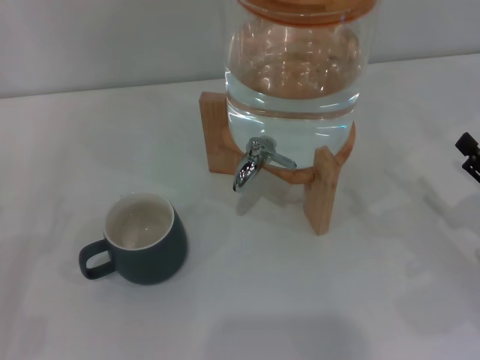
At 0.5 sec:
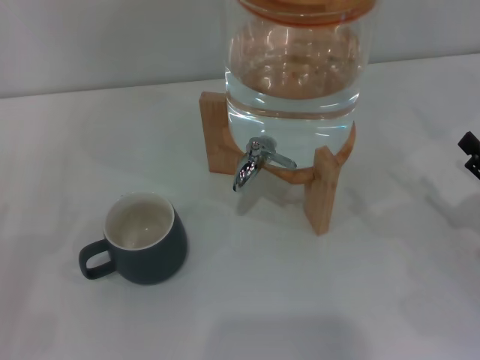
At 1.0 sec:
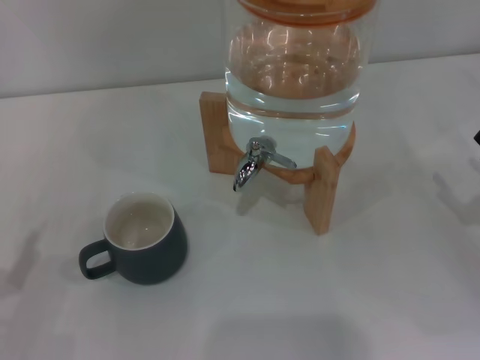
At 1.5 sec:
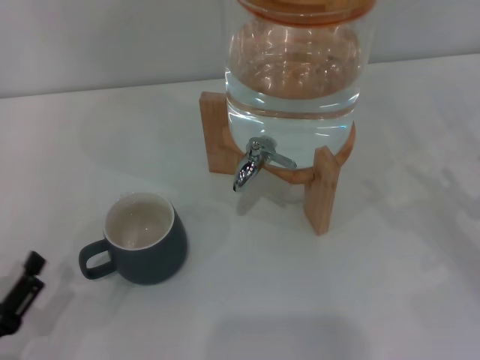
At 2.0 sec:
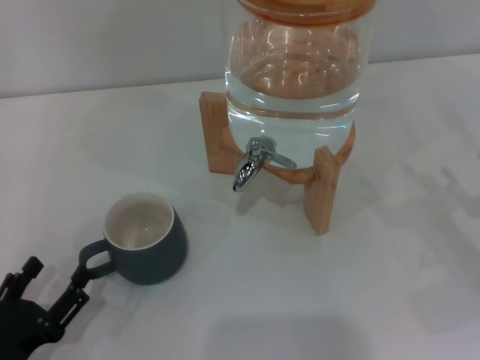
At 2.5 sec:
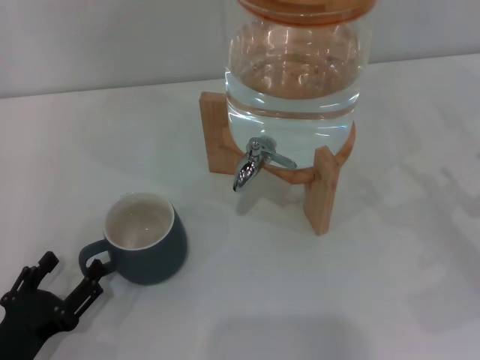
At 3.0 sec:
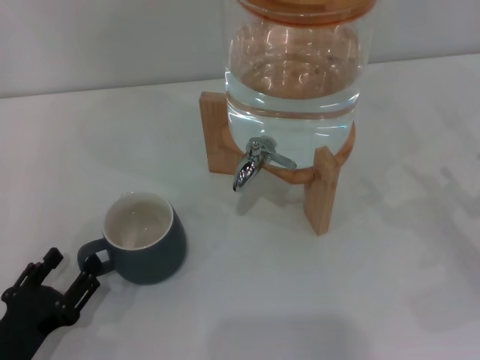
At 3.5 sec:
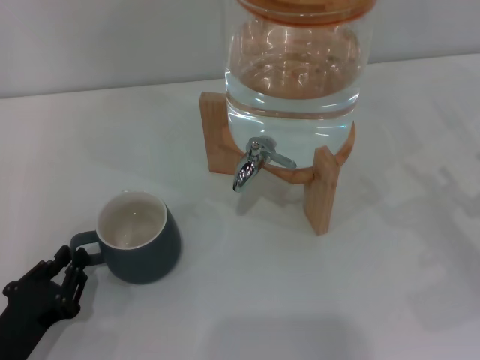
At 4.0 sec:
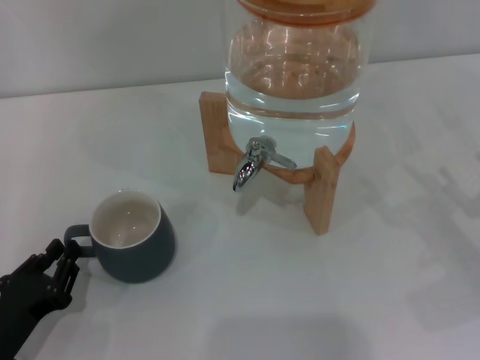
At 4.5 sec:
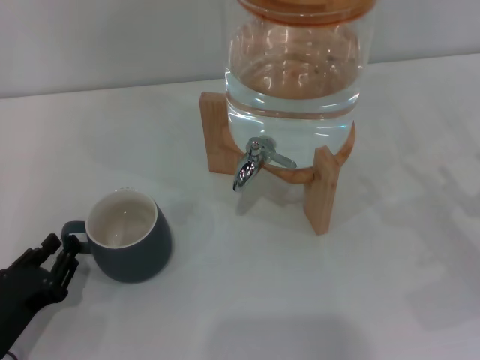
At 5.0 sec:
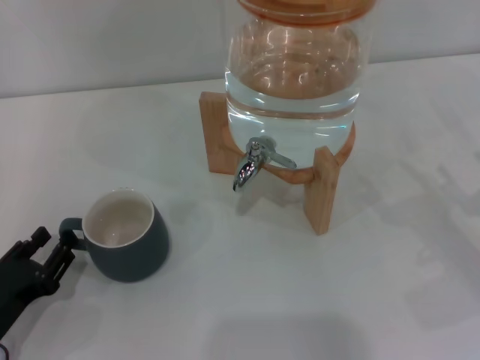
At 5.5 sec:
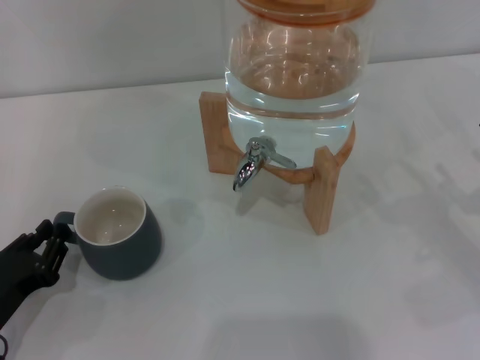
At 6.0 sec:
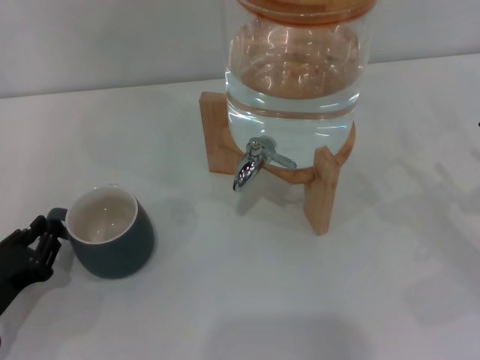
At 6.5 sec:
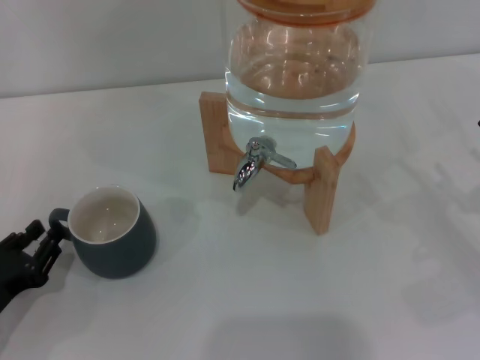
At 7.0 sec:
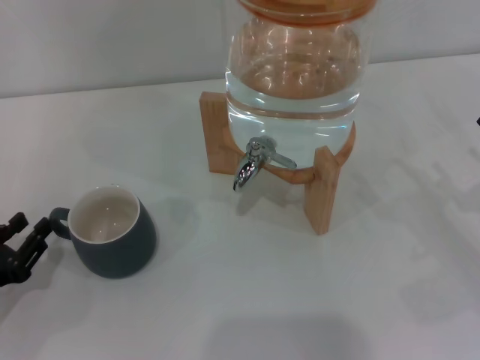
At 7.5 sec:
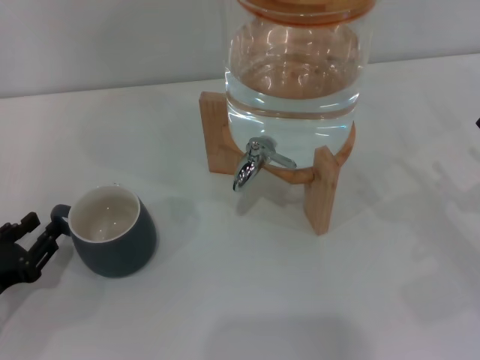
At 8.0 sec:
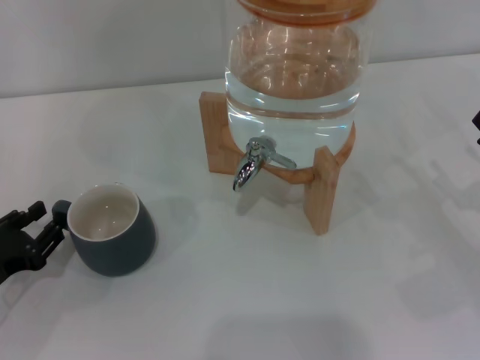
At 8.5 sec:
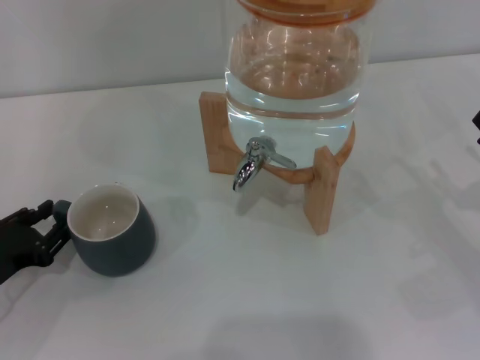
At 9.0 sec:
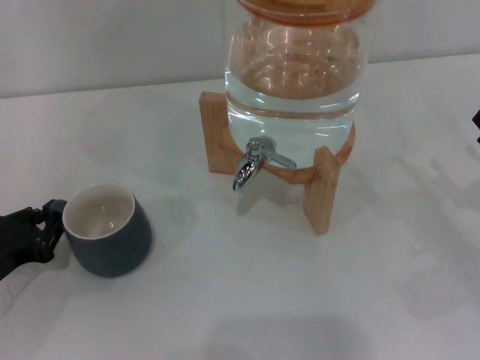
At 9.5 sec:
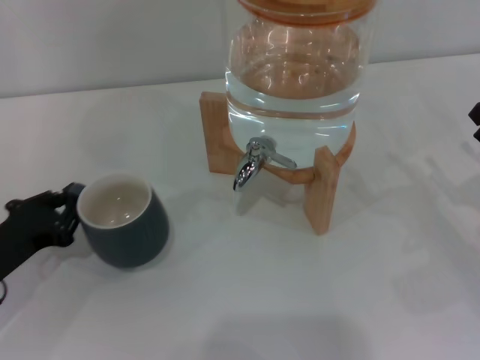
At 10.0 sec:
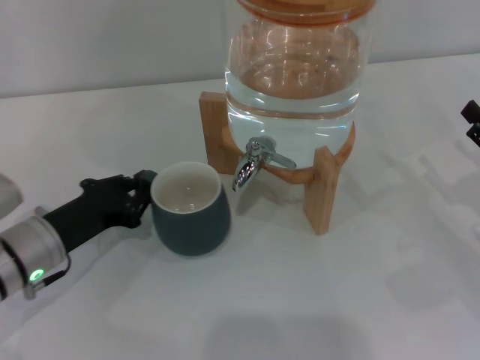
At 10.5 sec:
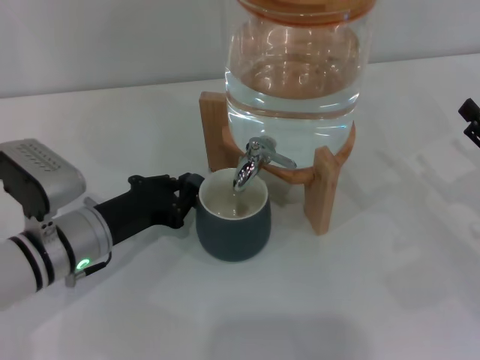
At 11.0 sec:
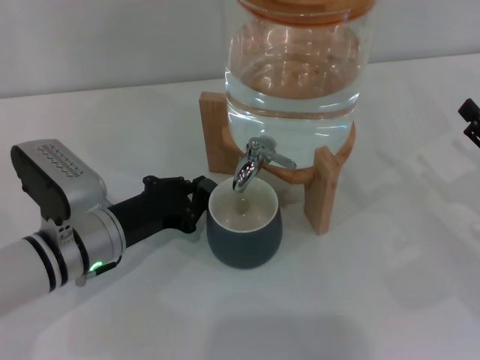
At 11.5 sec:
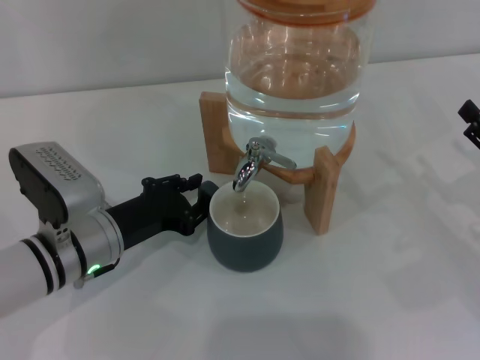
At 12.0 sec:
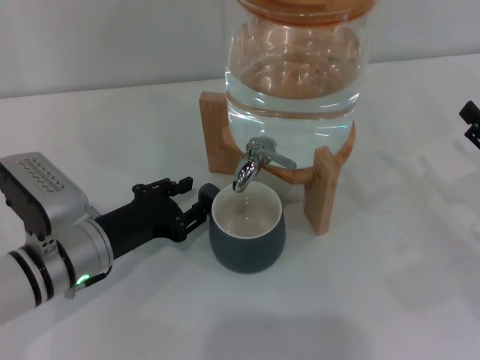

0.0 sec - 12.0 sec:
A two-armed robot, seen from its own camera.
Task of the whole recording: the left gripper pick up the black cup and place it horizontally under the faucet, the right gripper turn on the faucet to fill the cup, and then turn off the faucet.
0.0 sec - 2.0 sec: The left gripper is displaced to the right and backward by roughly 10 cm.
2.0 sec - 4.0 sec: The left gripper closes up.
4.0 sec - 6.0 sec: The grippers make only small movements.
6.0 sec - 8.0 sec: There are only small adjustments of the grippers.
8.0 sec - 10.0 sec: The left gripper travels to the right and forward by some 10 cm, and closes its fingers.
10.0 sec - 12.0 sec: The left gripper opens.

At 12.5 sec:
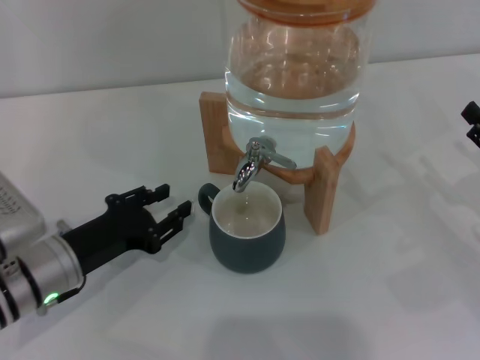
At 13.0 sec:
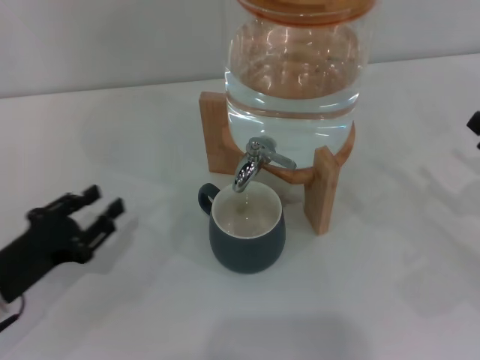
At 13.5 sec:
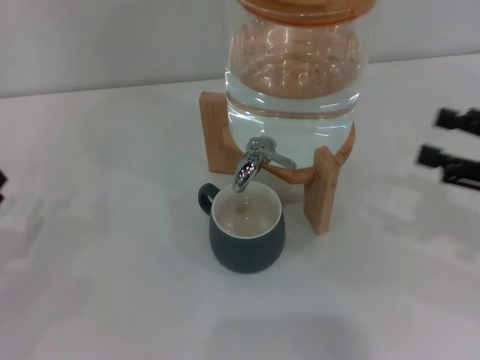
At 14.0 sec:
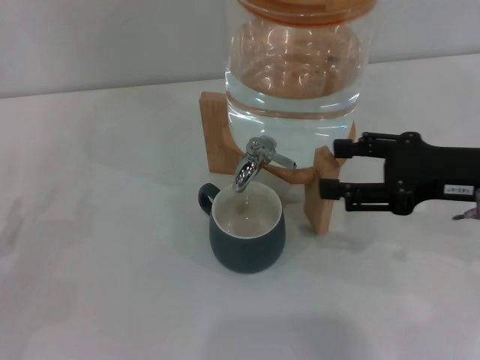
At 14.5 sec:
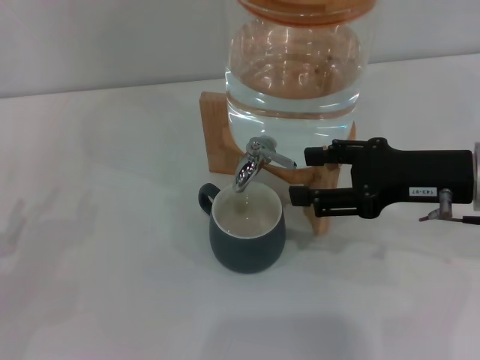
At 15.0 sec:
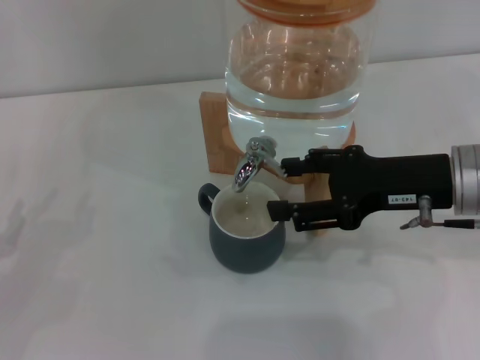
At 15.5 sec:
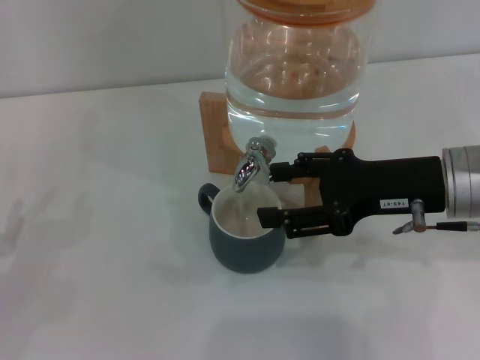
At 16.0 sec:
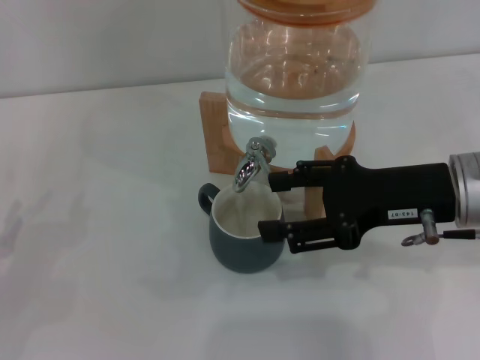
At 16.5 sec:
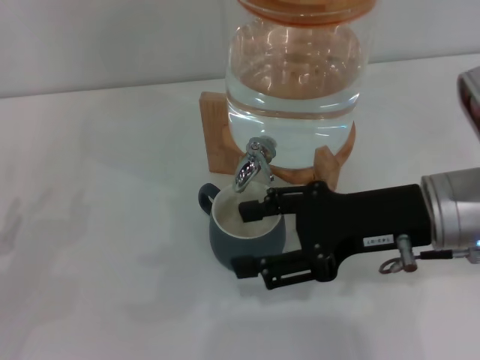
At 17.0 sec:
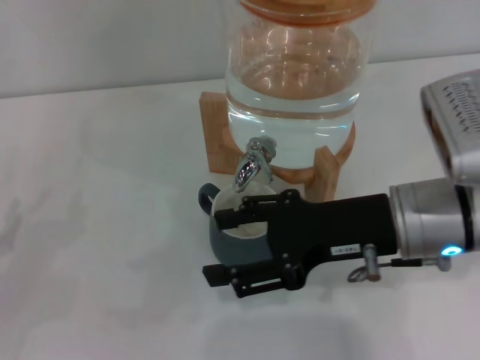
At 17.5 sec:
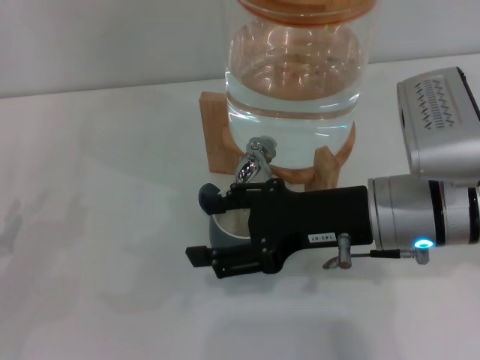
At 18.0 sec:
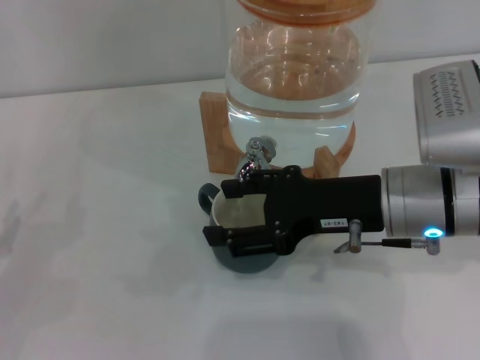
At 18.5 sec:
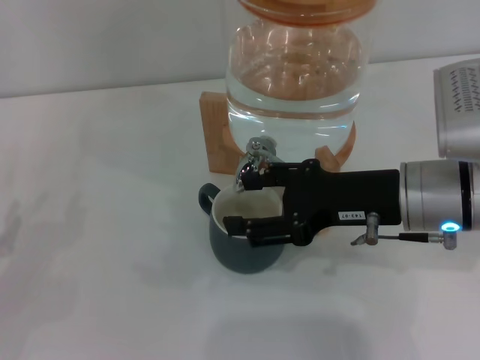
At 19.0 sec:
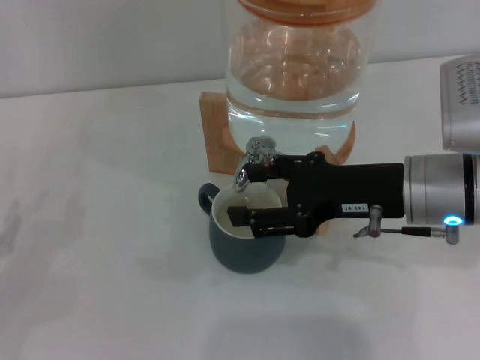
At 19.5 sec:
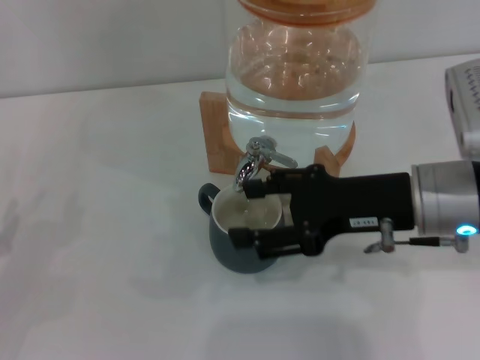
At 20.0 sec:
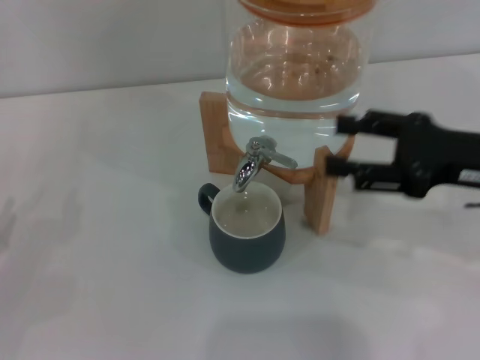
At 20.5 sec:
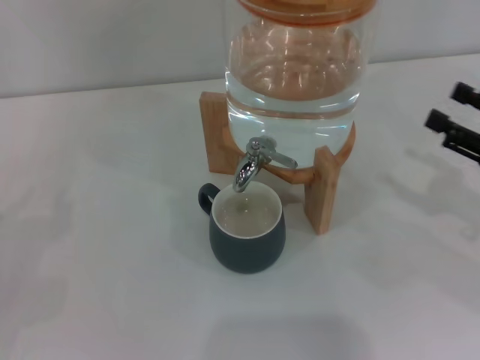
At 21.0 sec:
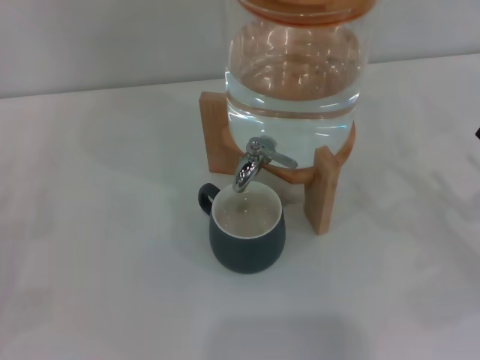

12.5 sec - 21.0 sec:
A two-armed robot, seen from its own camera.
Task of the whole recording: the left gripper pick up the black cup and place it horizontally under the faucet, the right gripper turn on the faucet to fill the cup, and then turn off the faucet.
Step, 13.0 sec - 17.5 sec: Open the dispenser valve and fill the cup with water with the right gripper.
Step, 18.0 sec - 19.5 sec: Close the dispenser valve with the right gripper.
12.5 sec - 14.5 sec: The left gripper moves to the left, some 15 cm, while the right gripper goes about 15 cm upward and to the left.
14.5 sec - 16.5 sec: The right gripper travels to the left by some 5 cm.
16.5 sec - 19.0 sec: The grippers stay close to where they were, moving slightly.
19.0 sec - 21.0 sec: The right gripper travels to the right, downward and backward by roughly 20 cm.
